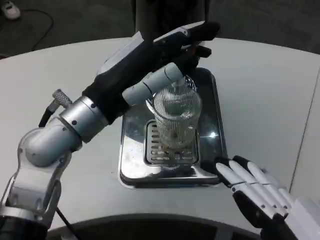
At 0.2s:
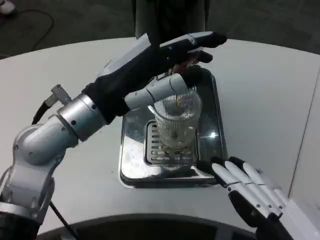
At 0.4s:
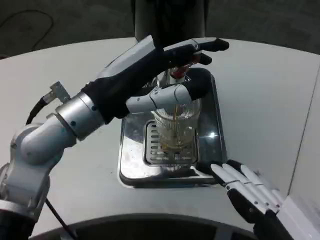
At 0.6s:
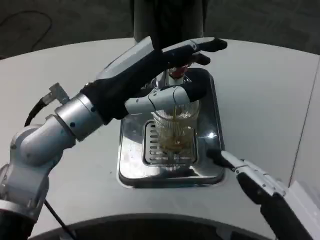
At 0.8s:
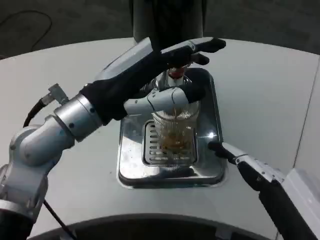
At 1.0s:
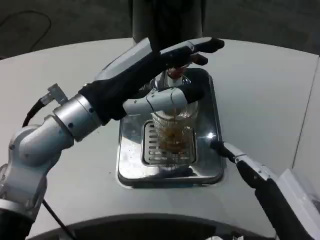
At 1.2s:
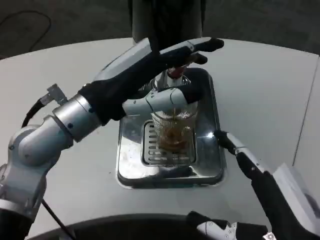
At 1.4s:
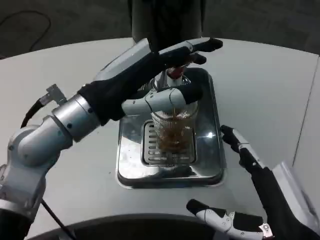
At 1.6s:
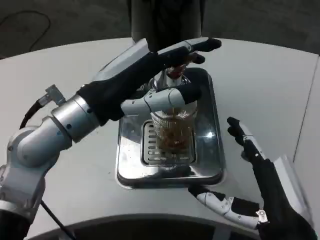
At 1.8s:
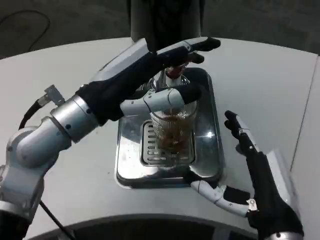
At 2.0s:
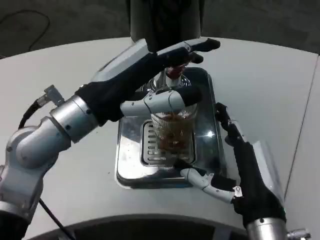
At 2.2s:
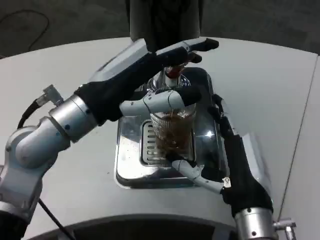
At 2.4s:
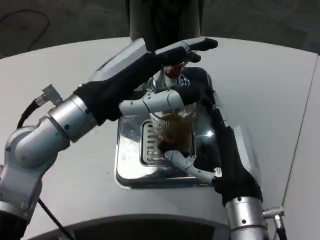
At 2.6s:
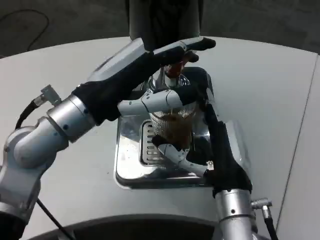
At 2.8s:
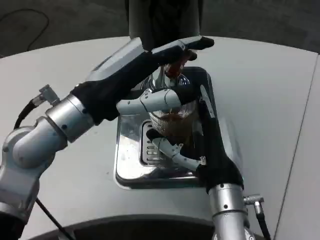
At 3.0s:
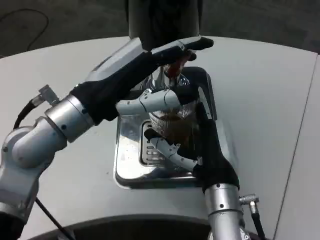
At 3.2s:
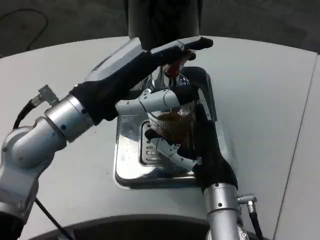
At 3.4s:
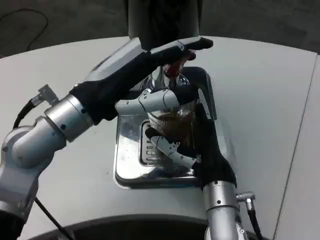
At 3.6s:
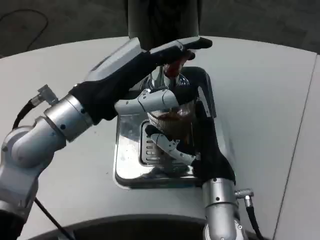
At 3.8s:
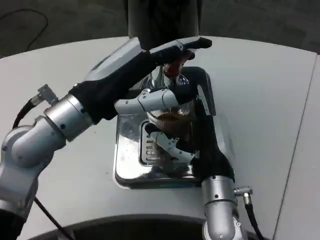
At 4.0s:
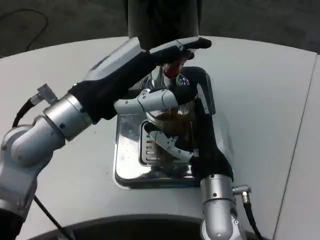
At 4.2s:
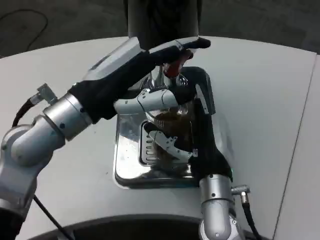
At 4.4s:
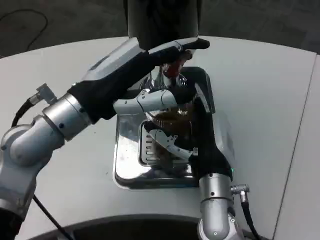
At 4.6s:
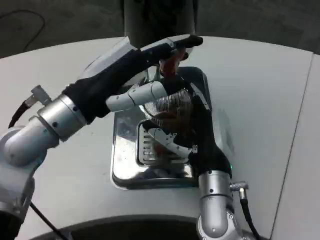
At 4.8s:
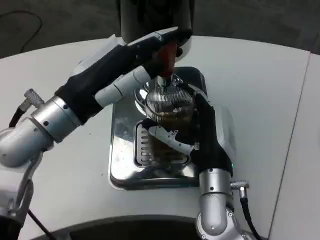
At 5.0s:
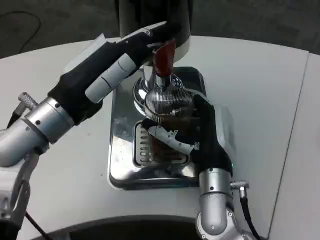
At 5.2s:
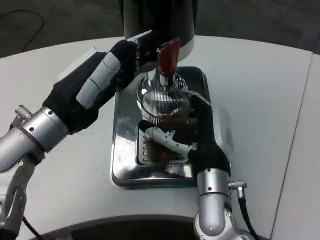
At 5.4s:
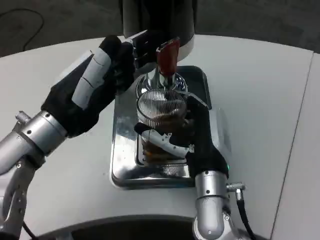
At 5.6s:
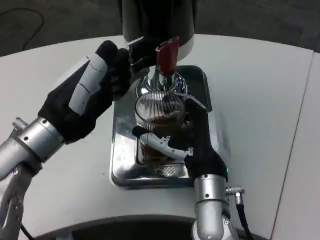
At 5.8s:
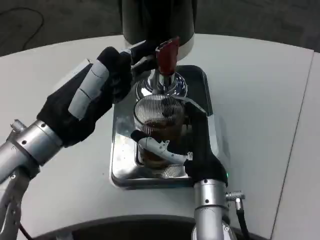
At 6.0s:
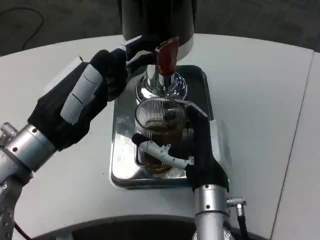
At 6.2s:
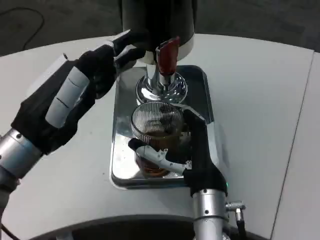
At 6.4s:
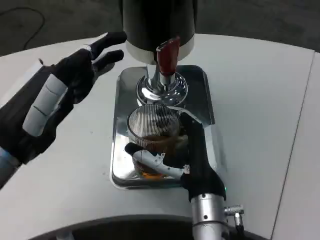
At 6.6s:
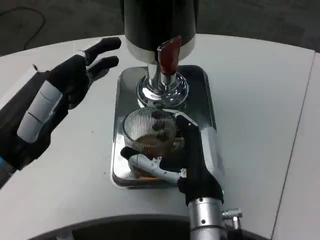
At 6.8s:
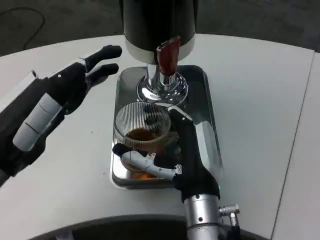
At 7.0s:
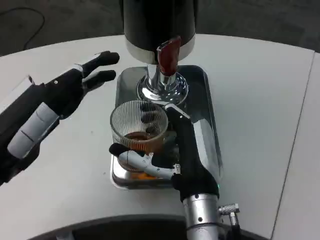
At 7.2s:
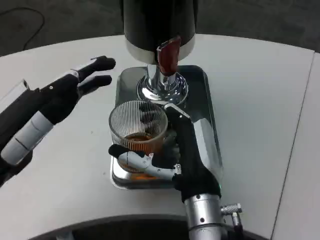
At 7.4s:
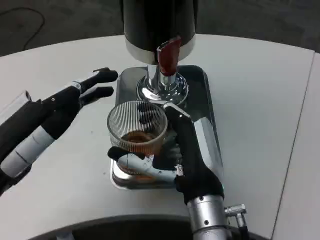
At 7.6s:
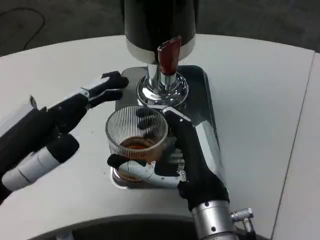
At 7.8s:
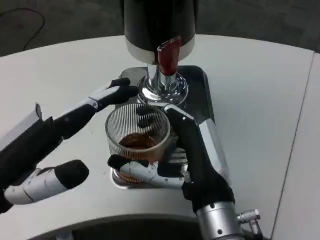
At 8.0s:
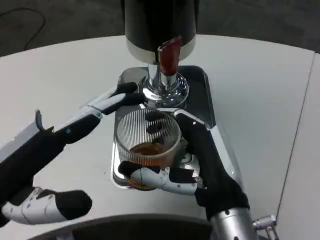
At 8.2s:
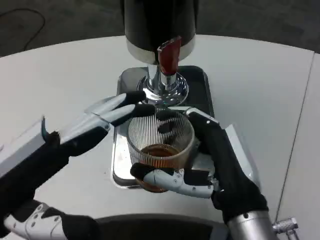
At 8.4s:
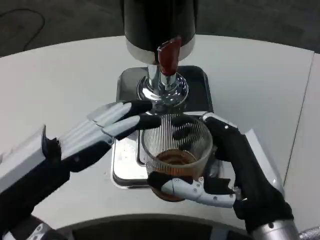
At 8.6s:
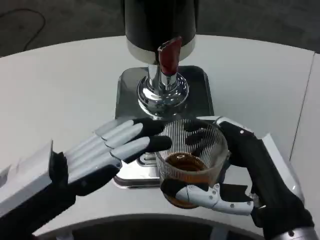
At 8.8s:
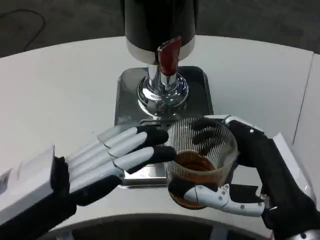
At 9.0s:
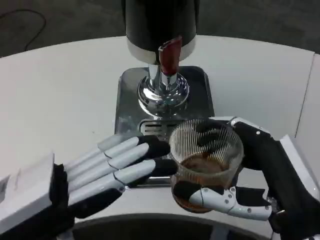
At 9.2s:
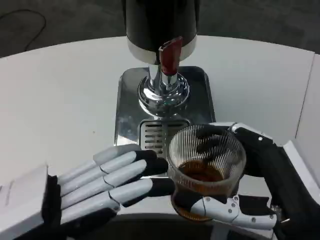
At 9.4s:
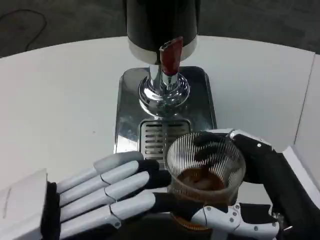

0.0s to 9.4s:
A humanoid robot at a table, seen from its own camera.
Task of the whole recording: Grasp the cup under the faucet to collect the drink, then remove the cup.
0.0s to 1.6s: The right hand travels forward and downward by some 15 cm.
1.6s to 3.2s: The right hand is displaced forward and to the left by some 15 cm.
4.8s to 6.2s: The left hand heads backward, covering roughly 5 cm.
6.2s to 7.8s: Both hands move backward, roughly 5 cm.
7.8s to 9.4s: The left hand heads backward, covering some 5 cm; the right hand moves to the right and backward, about 15 cm.

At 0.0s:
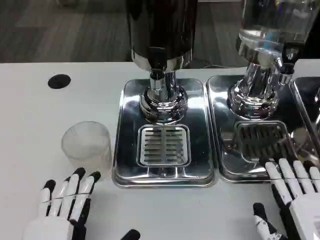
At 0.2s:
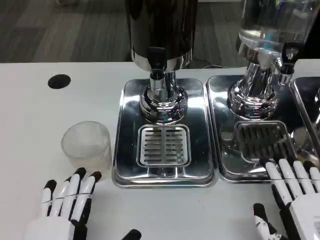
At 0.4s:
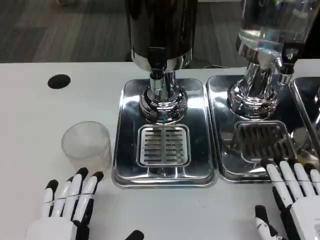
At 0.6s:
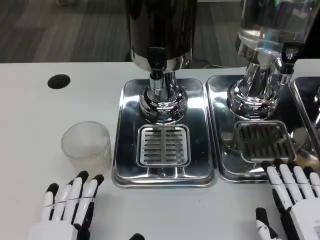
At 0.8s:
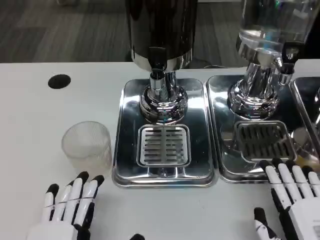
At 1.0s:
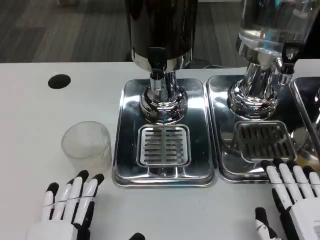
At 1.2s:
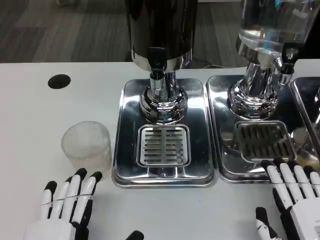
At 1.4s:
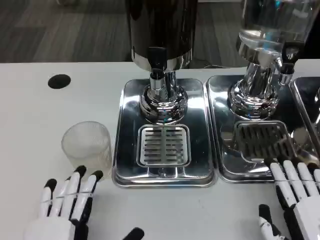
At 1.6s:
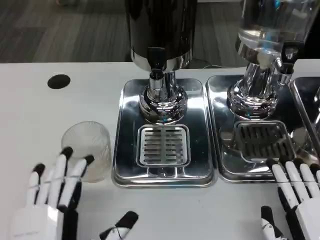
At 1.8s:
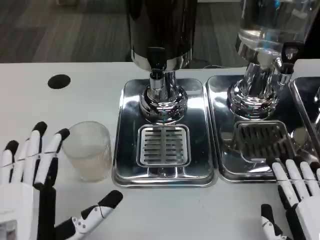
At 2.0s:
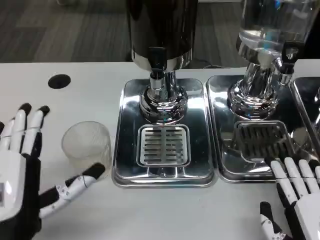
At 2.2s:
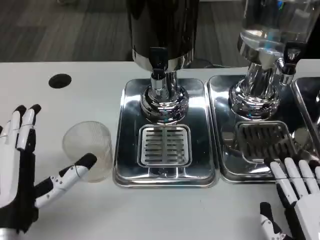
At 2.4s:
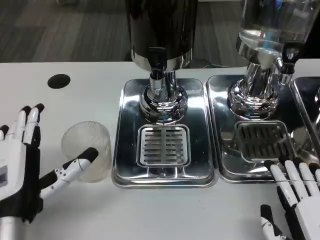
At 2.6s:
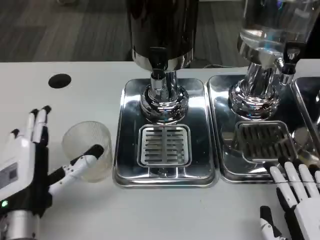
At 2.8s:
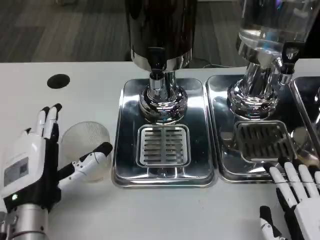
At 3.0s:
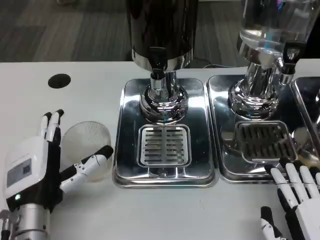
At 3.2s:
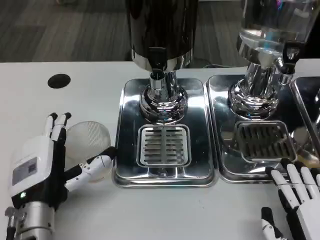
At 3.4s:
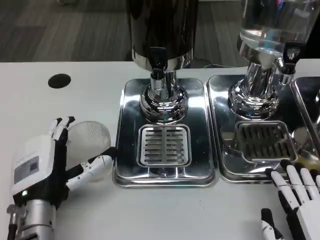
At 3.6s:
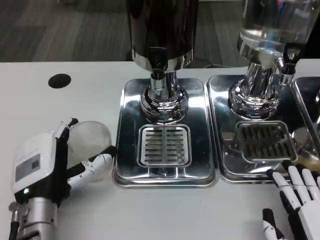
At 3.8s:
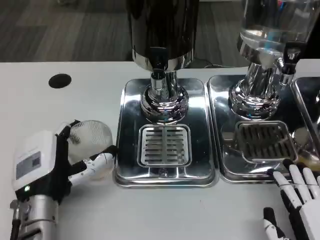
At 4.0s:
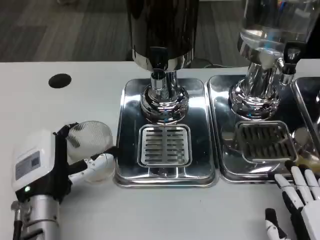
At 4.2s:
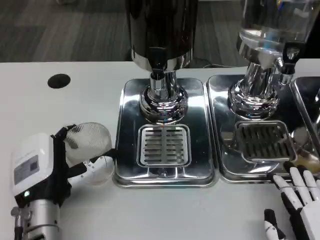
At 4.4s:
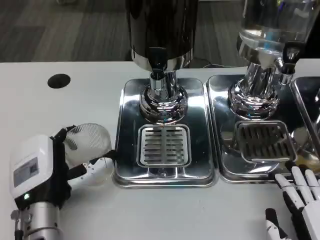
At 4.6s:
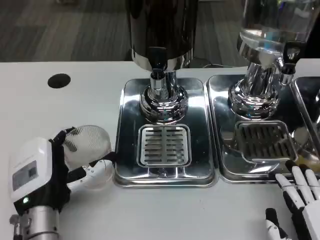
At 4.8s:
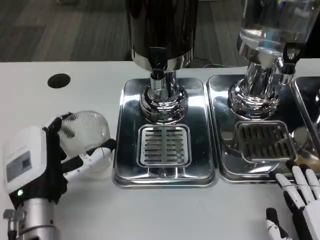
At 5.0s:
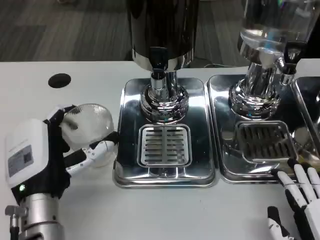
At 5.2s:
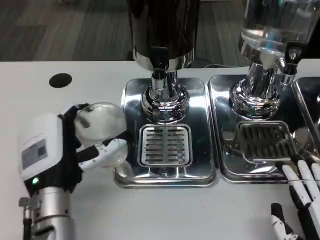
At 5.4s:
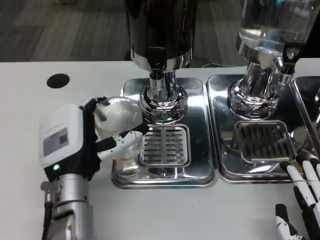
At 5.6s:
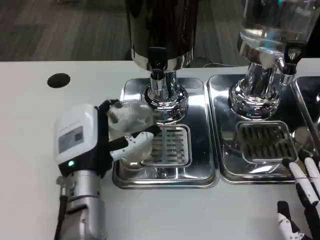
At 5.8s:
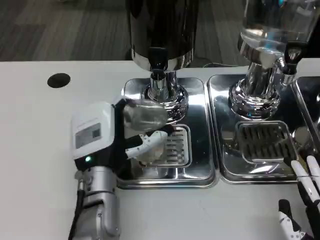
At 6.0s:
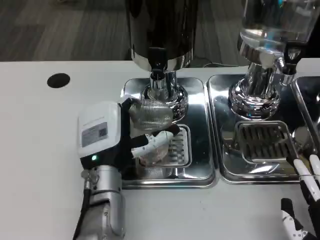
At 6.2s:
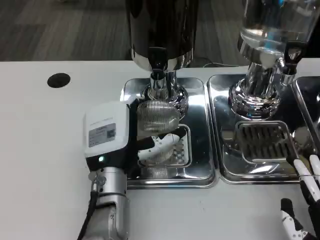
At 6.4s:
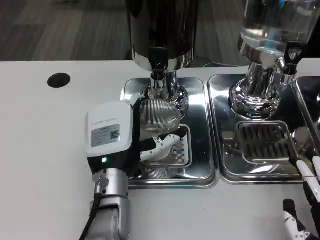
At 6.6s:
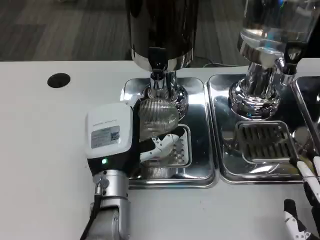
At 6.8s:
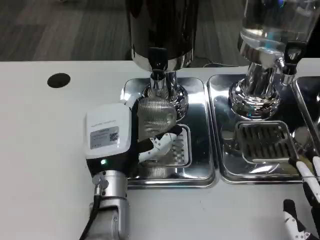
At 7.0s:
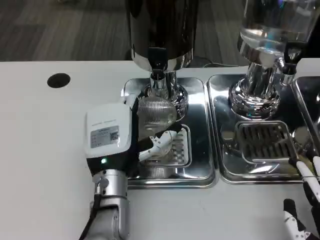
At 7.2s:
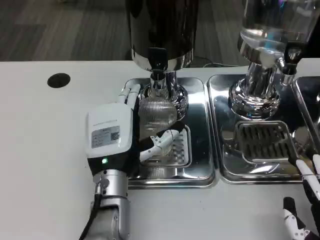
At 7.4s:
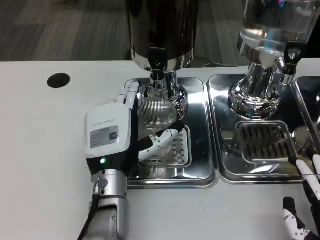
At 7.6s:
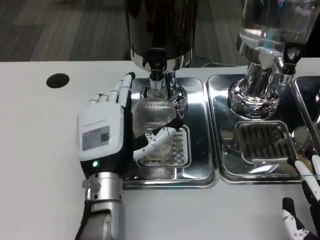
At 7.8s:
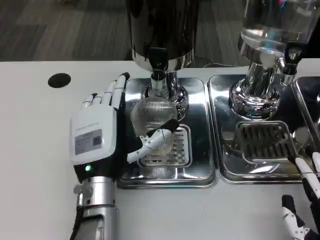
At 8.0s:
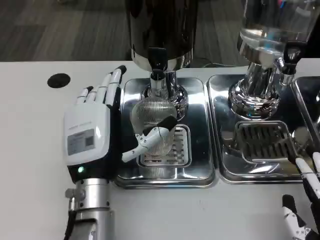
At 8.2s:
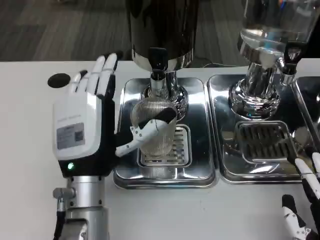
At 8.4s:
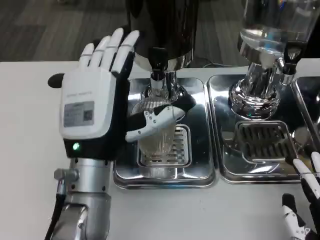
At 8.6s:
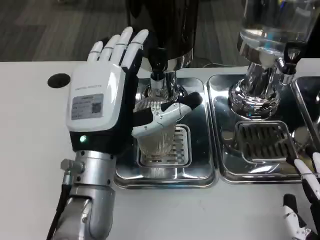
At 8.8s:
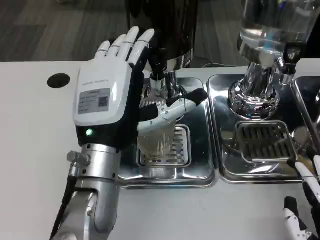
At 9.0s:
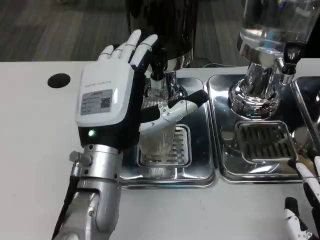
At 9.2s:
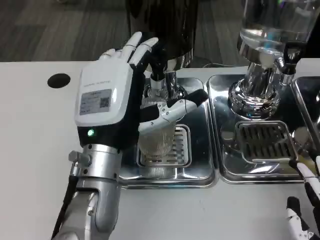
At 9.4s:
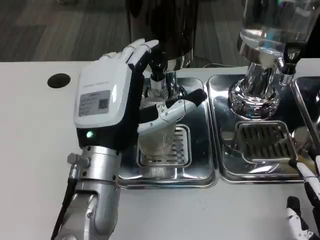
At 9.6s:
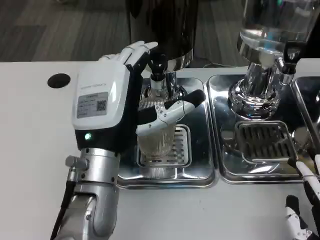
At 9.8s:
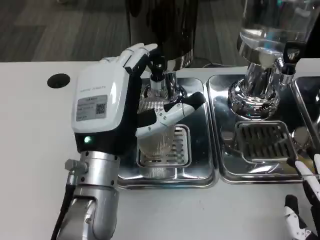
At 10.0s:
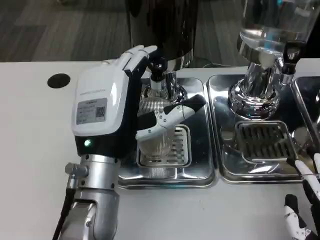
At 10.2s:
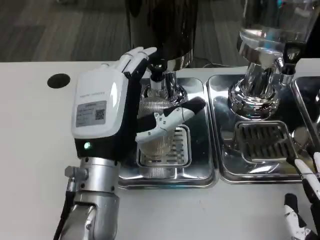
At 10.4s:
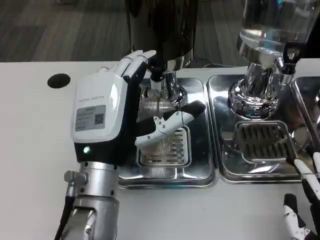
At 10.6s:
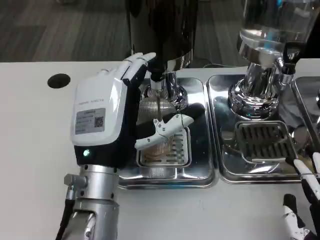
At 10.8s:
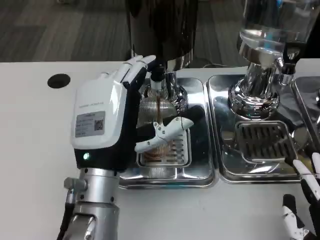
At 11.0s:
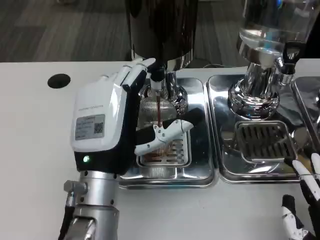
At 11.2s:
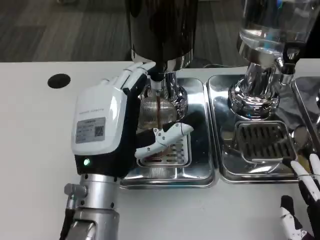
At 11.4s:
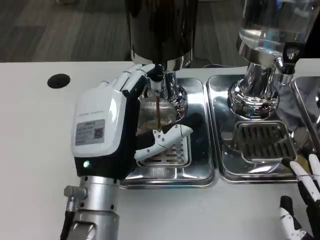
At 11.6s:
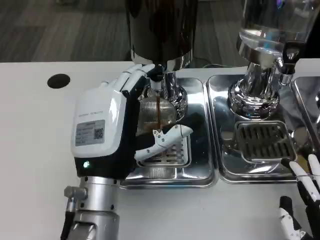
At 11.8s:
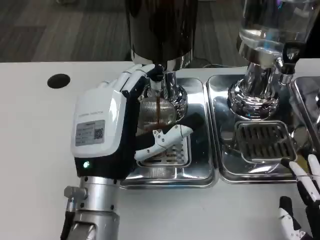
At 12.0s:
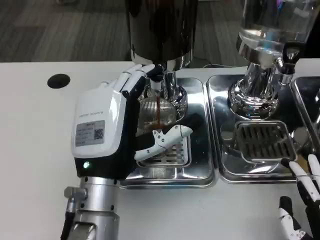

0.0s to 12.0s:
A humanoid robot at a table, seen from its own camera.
Task of the whole recording: Grasp the cup under the faucet to collect the drink, then remove the cup.
0.0s to 1.6s: There are only small adjustments of the hands.
1.6s to 3.0s: The left hand moves forward, approximately 10 cm.
3.0s to 4.4s: The hands stay close to where they were, moving slightly.
4.4s to 6.0s: The left hand heads to the right, covering approximately 10 cm.
6.0s to 7.6s: The hands make only small movements.
7.6s to 9.0s: The left hand goes roughly 10 cm upward.
9.0s to 12.0s: The hands move only a little.

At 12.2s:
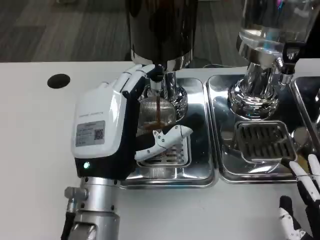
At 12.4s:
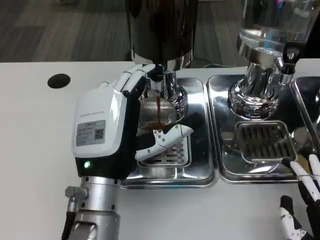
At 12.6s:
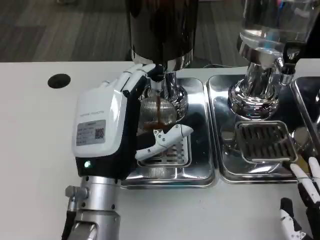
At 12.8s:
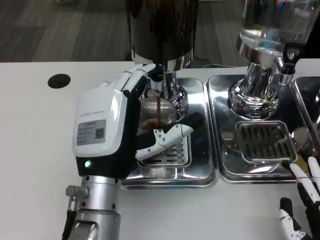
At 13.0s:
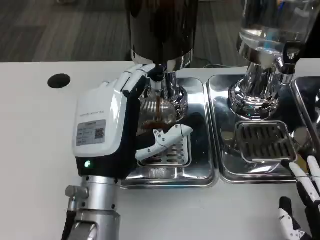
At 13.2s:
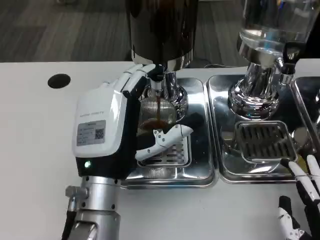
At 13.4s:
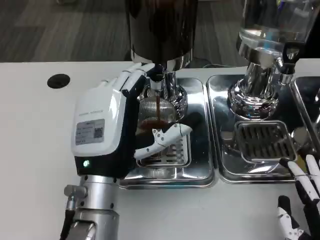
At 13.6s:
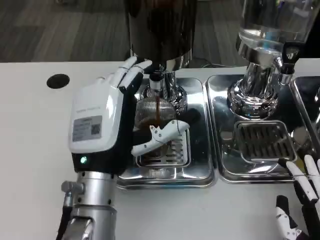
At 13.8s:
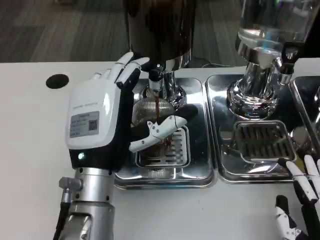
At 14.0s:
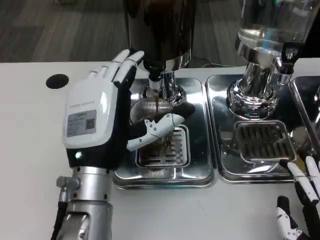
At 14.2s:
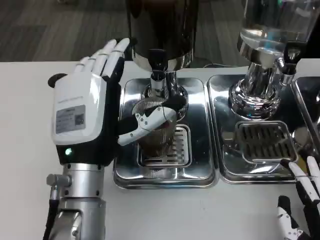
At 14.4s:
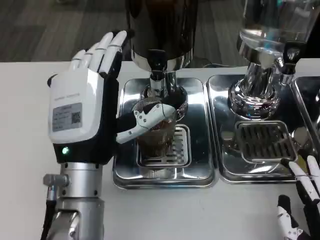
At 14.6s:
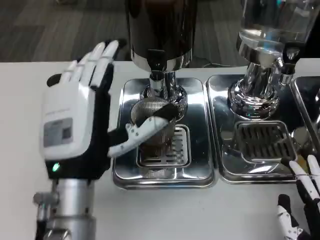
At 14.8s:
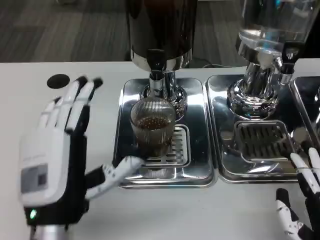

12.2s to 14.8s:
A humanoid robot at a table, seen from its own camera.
Task of the whole recording: Grasp the cup under the faucet to collect the drink, then remove the cup.
12.2s to 13.4s: Both hands stay put.
13.4s to 14.8s: The left hand heads backward, covering about 5 cm.
